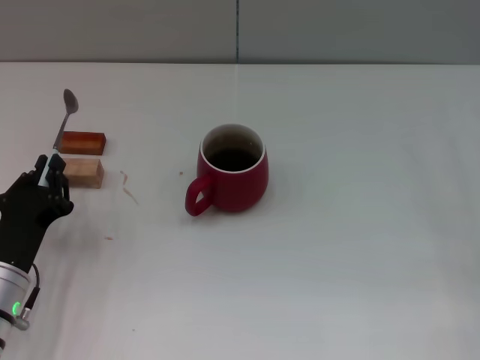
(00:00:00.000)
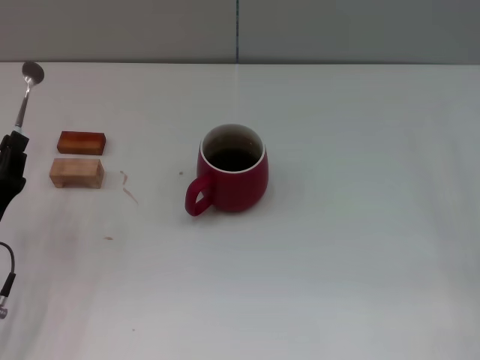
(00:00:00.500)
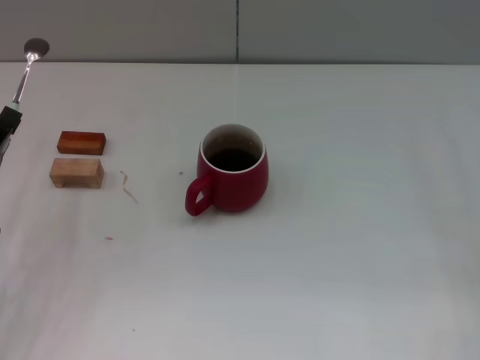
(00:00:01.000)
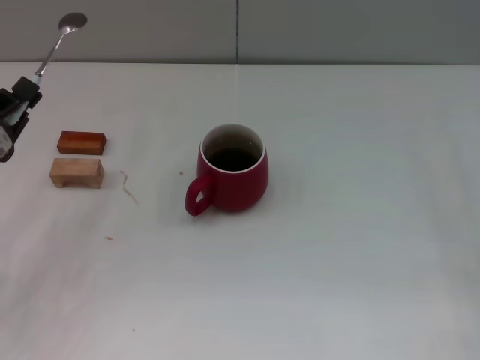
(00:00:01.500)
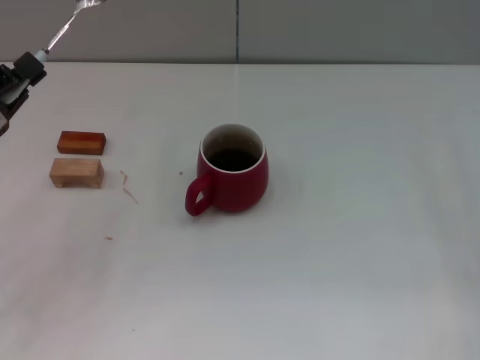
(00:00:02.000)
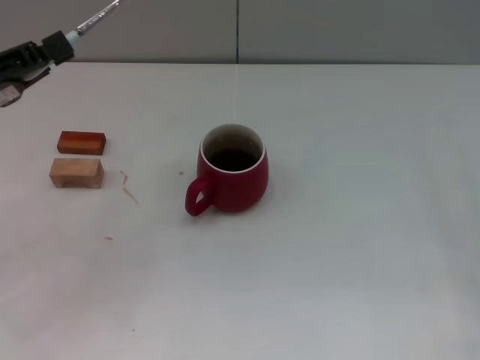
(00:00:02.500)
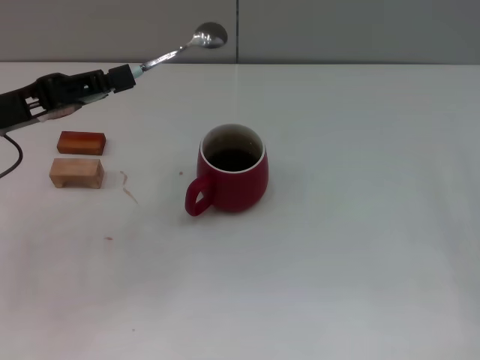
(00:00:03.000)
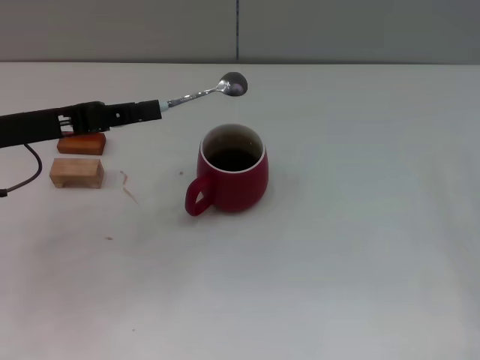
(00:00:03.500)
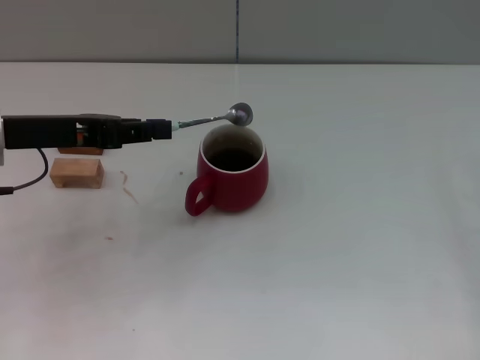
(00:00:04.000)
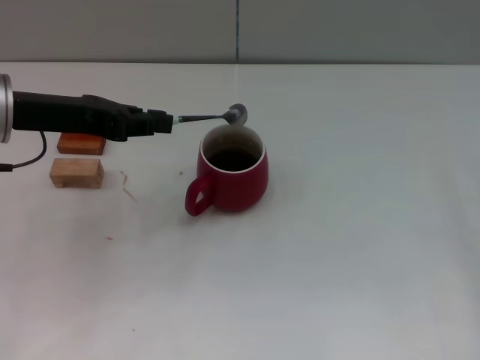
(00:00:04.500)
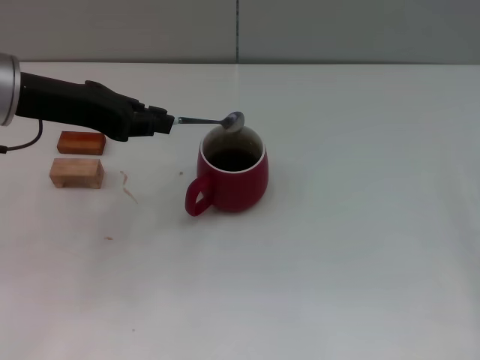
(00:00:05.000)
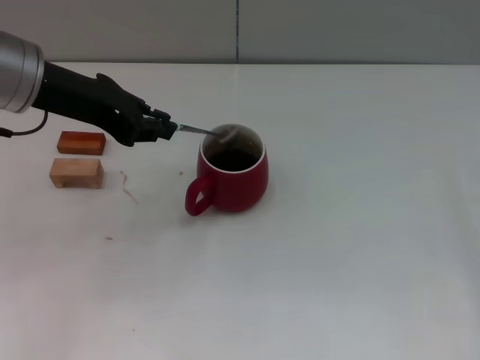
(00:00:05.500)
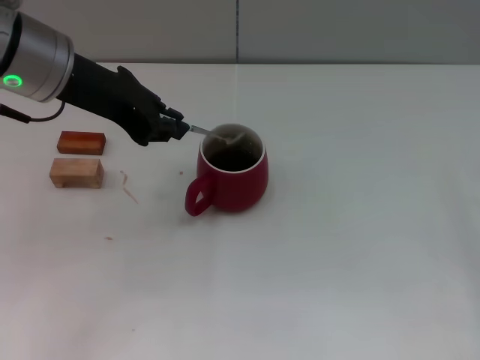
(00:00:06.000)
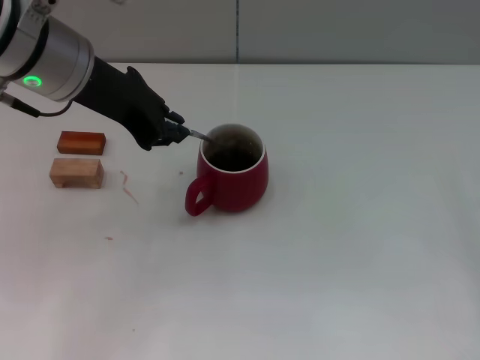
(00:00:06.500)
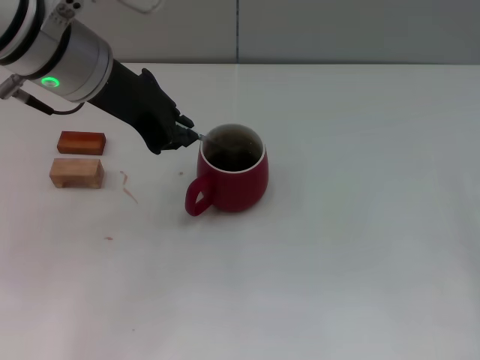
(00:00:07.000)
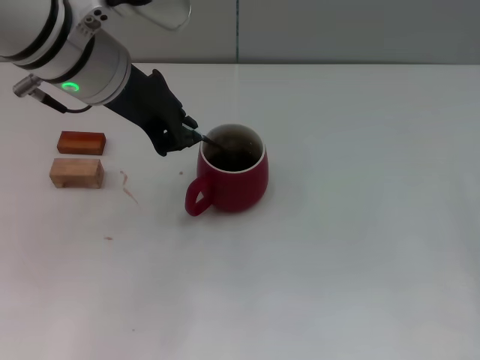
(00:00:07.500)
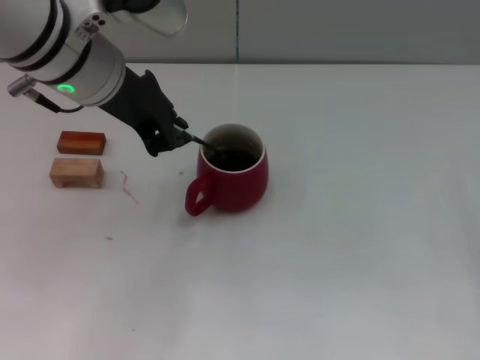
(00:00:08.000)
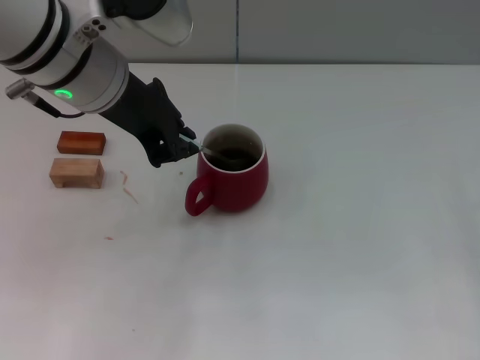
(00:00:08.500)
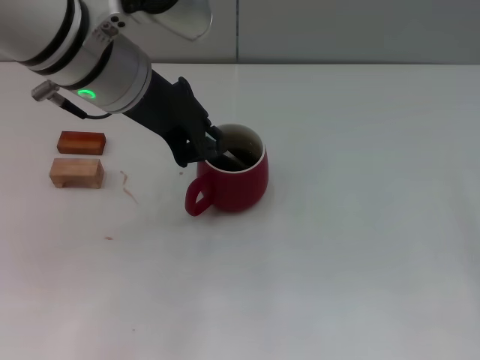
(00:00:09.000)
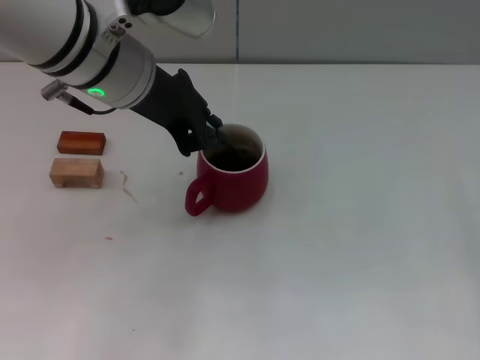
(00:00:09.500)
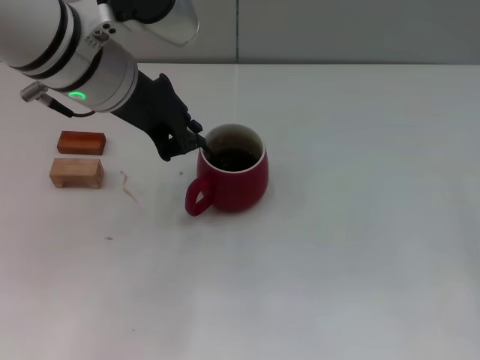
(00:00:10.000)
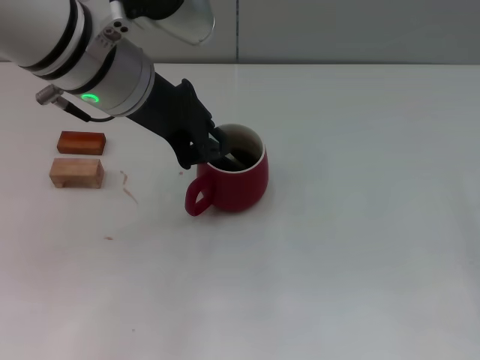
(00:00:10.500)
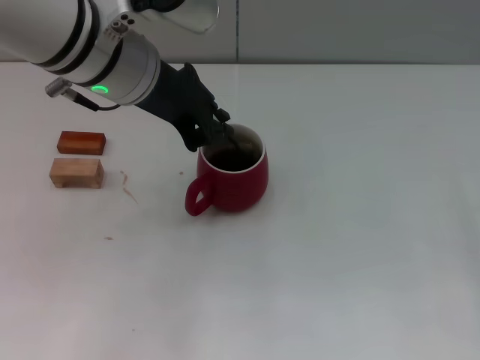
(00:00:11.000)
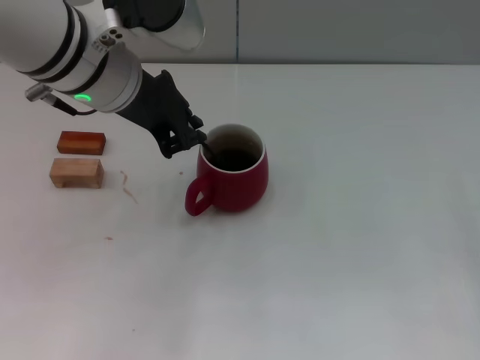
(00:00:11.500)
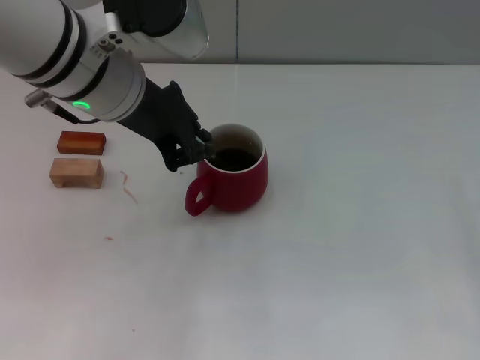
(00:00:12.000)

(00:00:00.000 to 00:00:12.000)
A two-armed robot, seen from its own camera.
Task of the whole recording: Move the red cup to the center, lift the blue spoon, stir it three times in the cup, and put the spoon into the cup.
00:00:00.000 - 00:00:02.000: The left gripper heads upward, to the left and forward, covering some 15 cm.
00:00:02.000 - 00:00:04.000: The left gripper travels forward, to the right and upward by roughly 10 cm.
00:00:04.000 - 00:00:06.000: The left gripper moves to the right and upward, about 10 cm.
00:00:08.000 - 00:00:12.000: The grippers make only small movements.

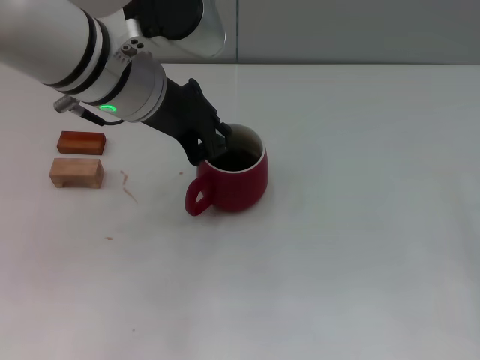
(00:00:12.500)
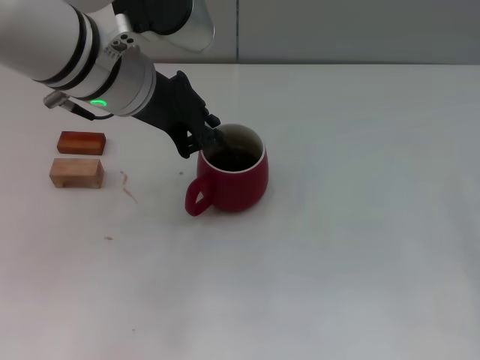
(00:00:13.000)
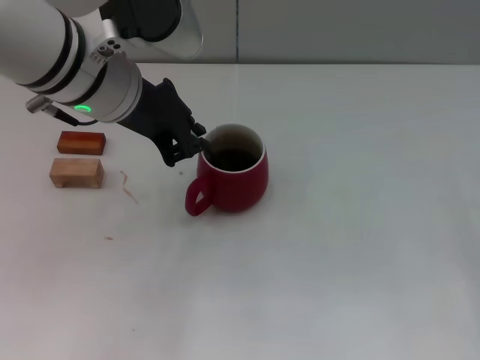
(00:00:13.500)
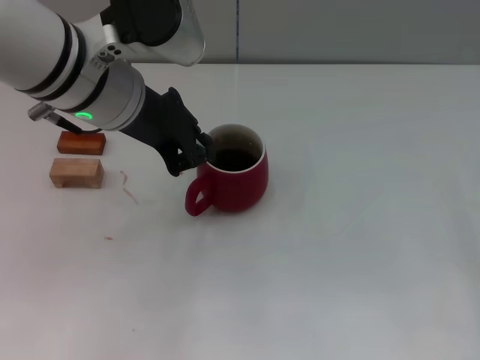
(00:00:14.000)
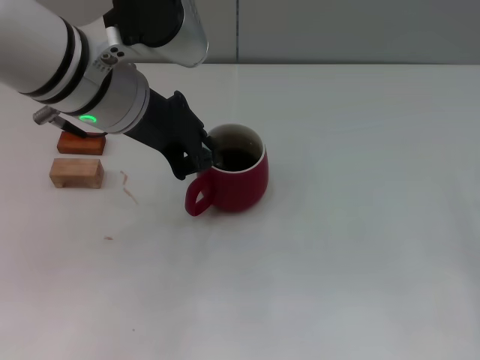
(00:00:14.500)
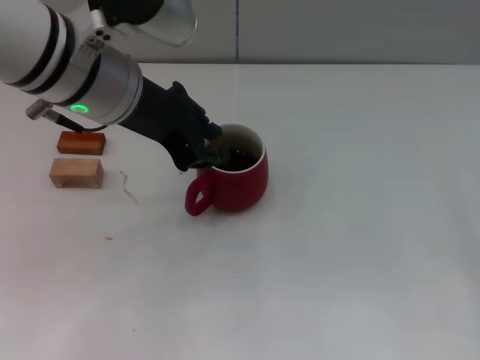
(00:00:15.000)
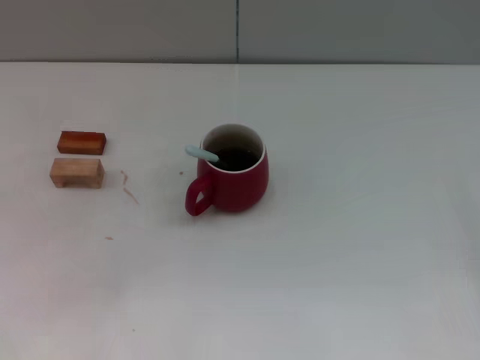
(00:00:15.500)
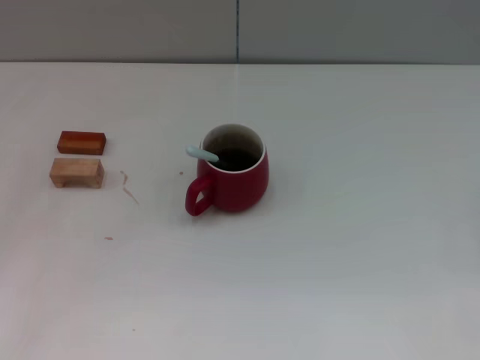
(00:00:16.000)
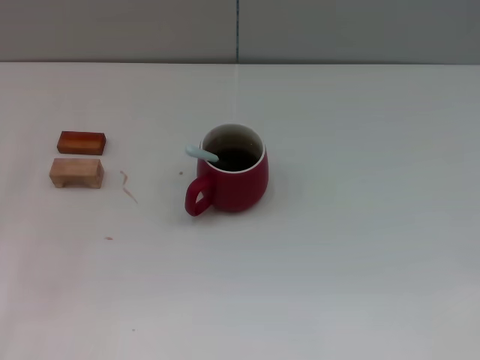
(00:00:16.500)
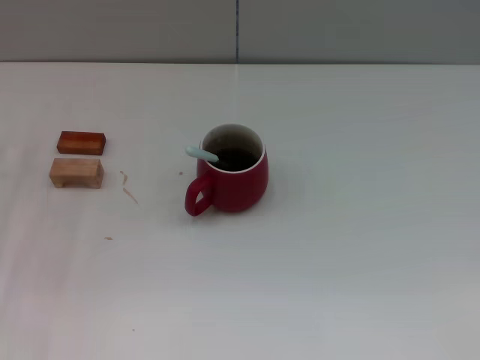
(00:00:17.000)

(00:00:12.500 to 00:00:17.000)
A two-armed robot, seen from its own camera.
Task of the whole recording: Move the red cup to the center, lift the blue spoon, stir it three times in the cup, and put the spoon into the cup.
Step, 00:00:12.500 - 00:00:15.000: Stir the coffee in the cup with the left gripper.
00:00:12.500 - 00:00:14.500: There are only small adjustments of the grippers.
00:00:14.500 - 00:00:17.000: The right gripper goes about 5 cm to the right; the left gripper shifts some 25 cm to the left and downward.
